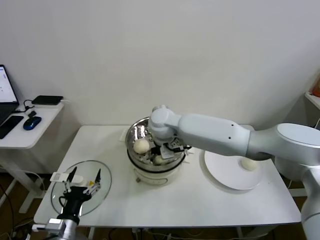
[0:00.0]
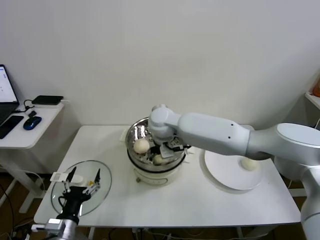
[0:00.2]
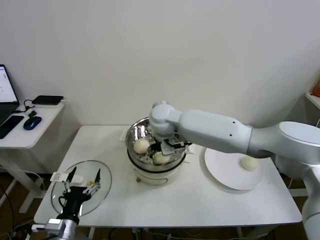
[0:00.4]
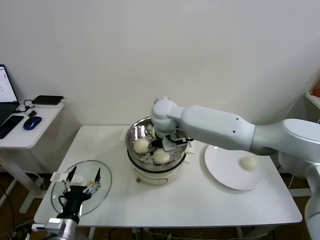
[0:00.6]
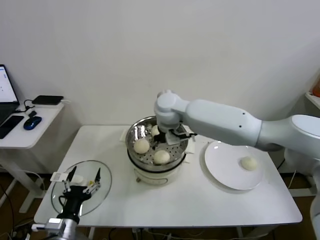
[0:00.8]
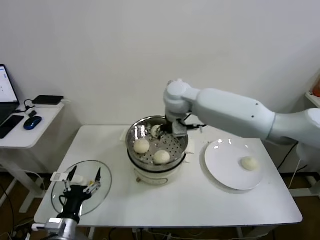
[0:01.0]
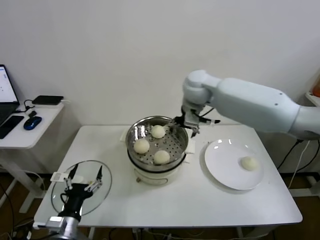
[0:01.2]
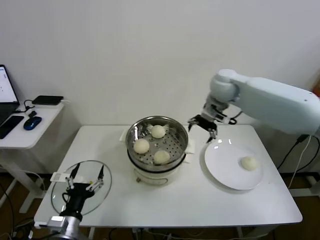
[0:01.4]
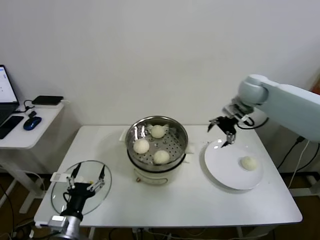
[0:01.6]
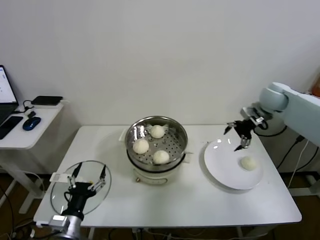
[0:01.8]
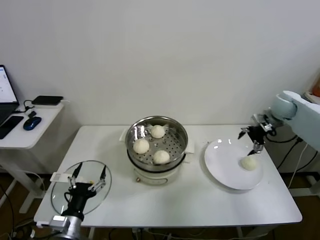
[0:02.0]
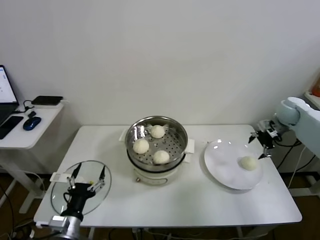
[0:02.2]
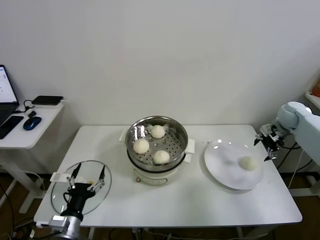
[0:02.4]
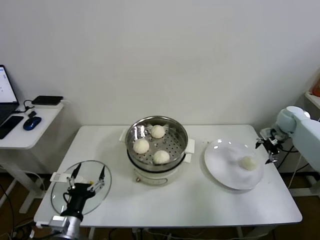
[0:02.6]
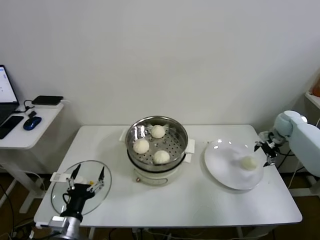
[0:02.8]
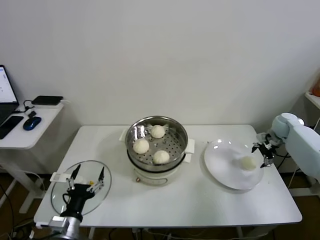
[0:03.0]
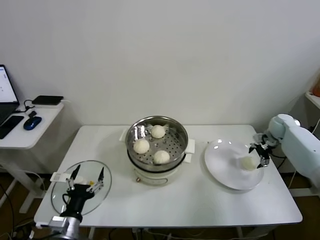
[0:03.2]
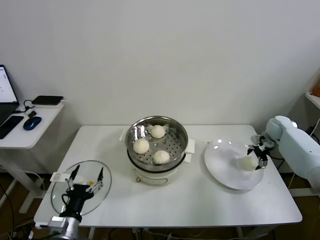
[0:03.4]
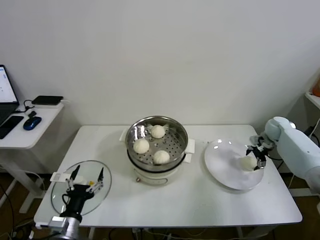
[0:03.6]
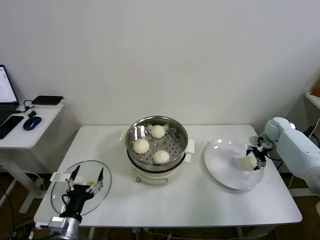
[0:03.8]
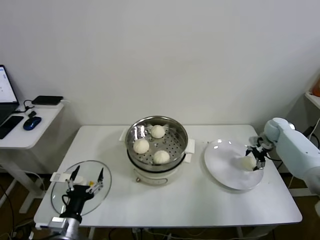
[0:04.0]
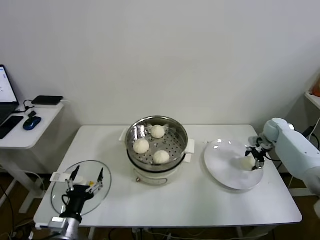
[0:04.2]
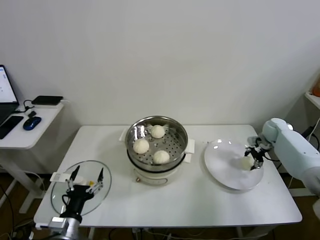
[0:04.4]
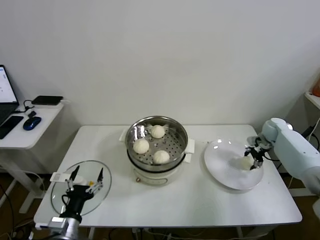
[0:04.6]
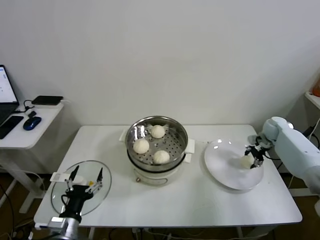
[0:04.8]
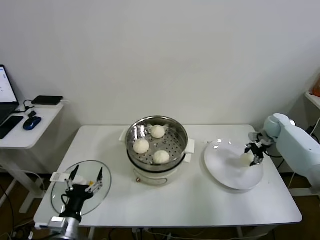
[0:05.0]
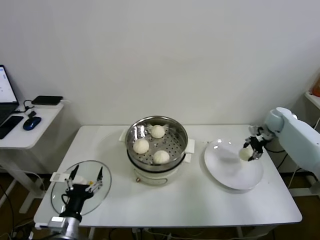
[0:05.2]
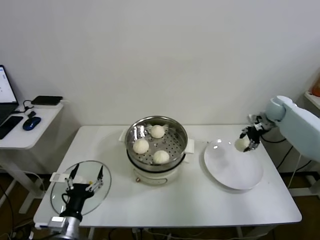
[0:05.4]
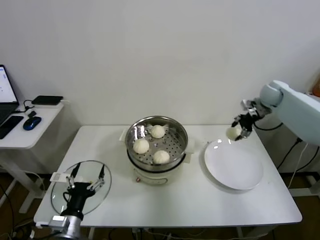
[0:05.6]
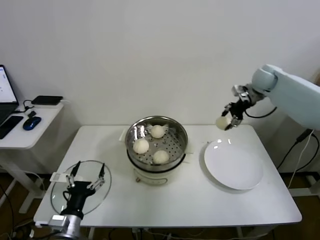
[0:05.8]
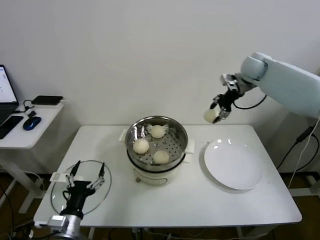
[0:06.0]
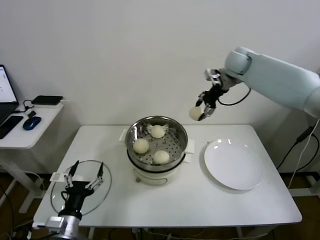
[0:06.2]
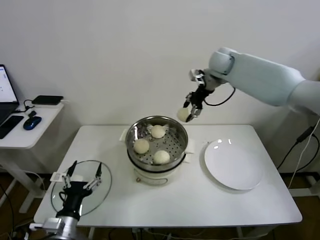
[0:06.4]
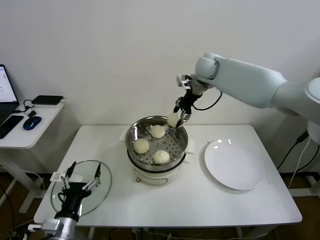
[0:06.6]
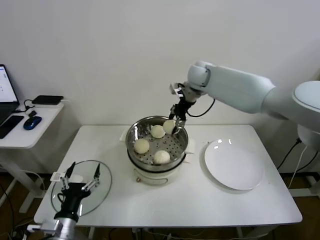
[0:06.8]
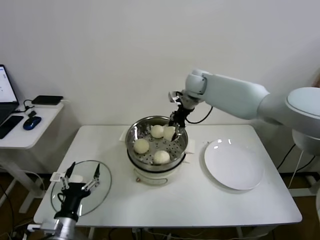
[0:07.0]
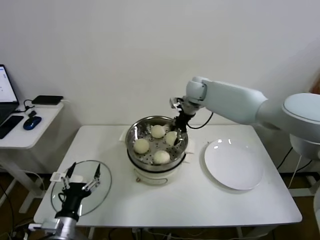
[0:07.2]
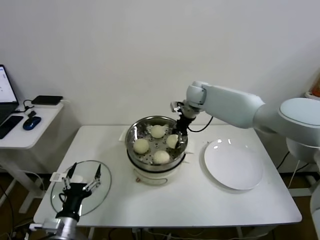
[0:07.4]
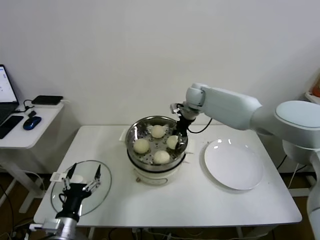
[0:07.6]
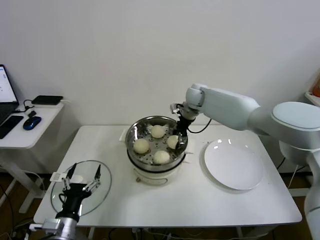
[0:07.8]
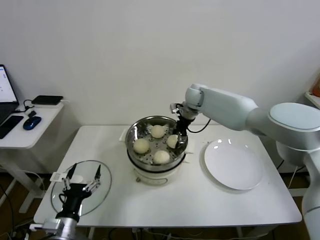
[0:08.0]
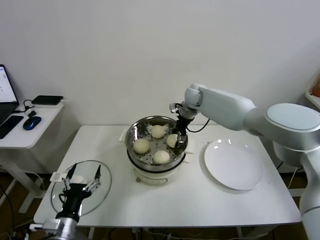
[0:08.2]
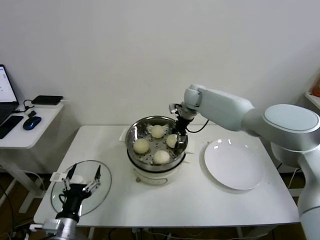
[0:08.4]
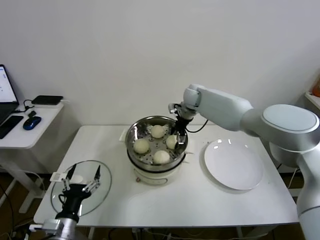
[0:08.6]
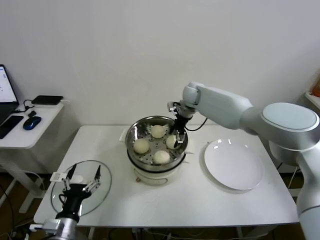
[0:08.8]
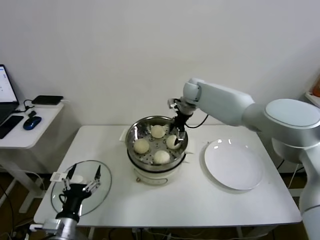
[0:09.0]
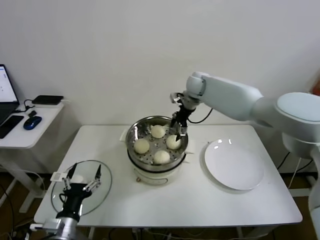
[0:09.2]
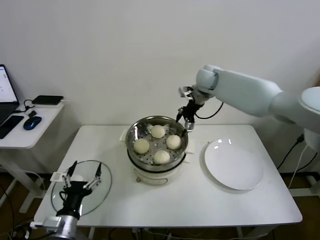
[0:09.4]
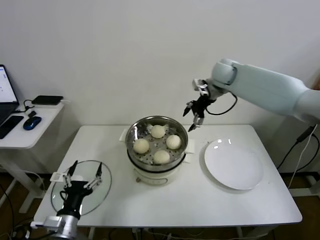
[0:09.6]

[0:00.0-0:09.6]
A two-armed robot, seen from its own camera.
Task of the whole recording: take steamed baozi put them in steamer.
Step, 0:00.6 to 0:04.4: Grasp the baozi in the plate with right gripper.
Step, 0:04.6 to 0:09.0: Place the baozi on the steamer with right gripper.
0:00.0 to 0:01.6: The right gripper shifts roughly 30 cm to the right.
0:01.6 to 0:03.2: The right gripper goes some 25 cm to the right and downward.
0:03.2 to 0:04.8: The right gripper closes up.
0:04.8 to 0:06.4: The right gripper travels upward and to the left by approximately 35 cm.
0:06.4 to 0:08.0: The right gripper goes about 15 cm downward and to the left.
0:08.0 to 0:09.6: The right gripper goes roughly 10 cm upward and to the right, and opens its fingers.

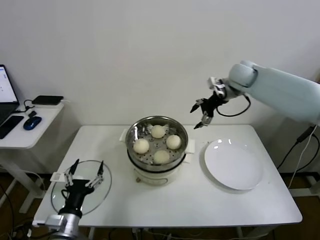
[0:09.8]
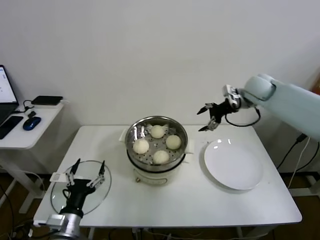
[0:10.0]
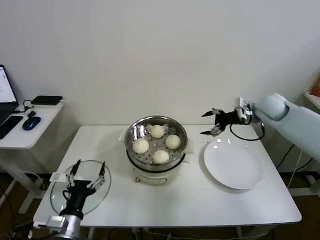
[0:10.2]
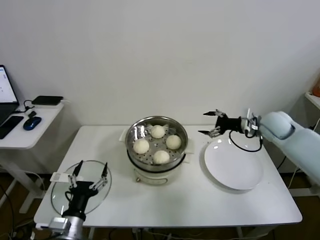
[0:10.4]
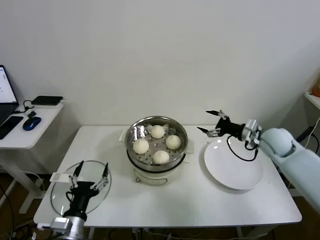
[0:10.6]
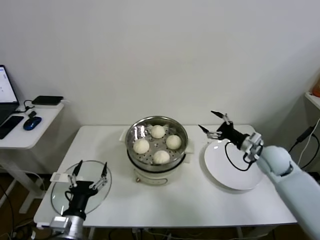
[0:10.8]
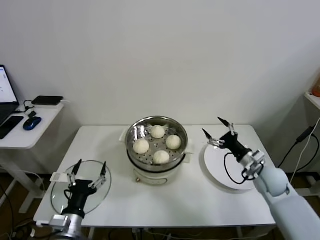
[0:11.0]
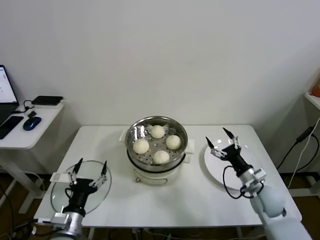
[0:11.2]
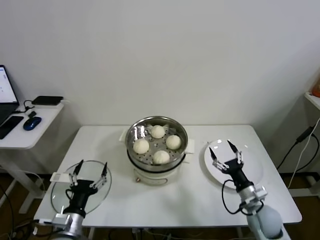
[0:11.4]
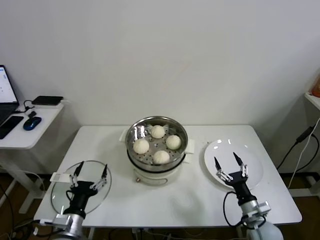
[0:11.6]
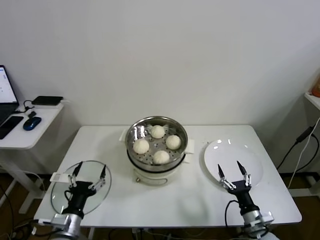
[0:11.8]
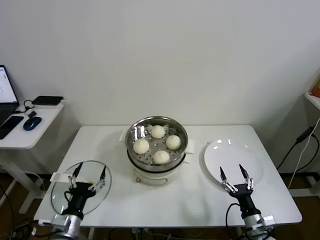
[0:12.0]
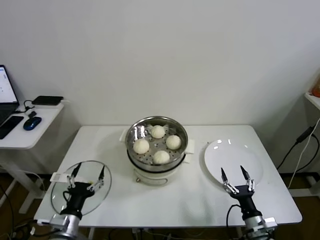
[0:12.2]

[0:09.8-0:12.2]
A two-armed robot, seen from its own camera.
Task of the whole recording: take steamed baozi put them in steamer.
0:09.8 to 0:11.0: The right gripper goes roughly 35 cm downward and backward.
0:11.0 to 0:12.2: The right gripper shifts roughly 25 cm backward and downward.
